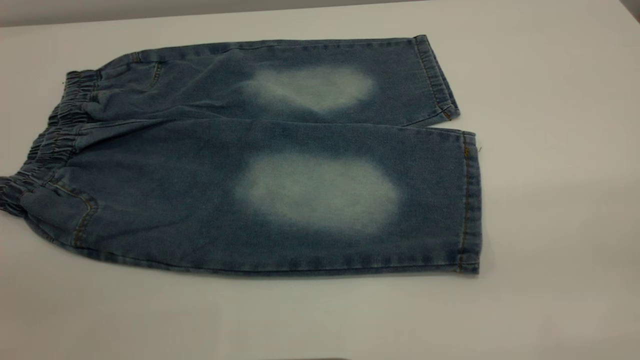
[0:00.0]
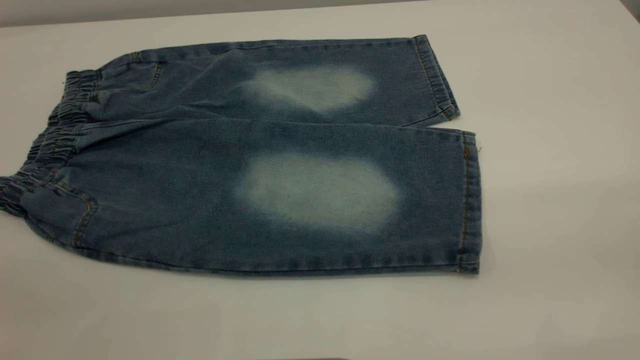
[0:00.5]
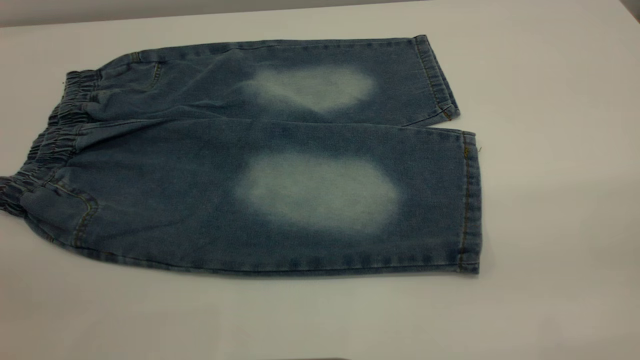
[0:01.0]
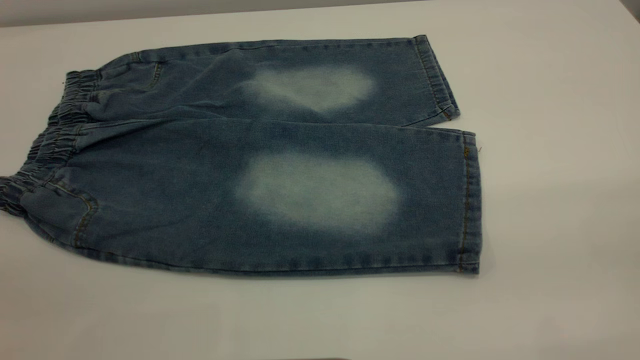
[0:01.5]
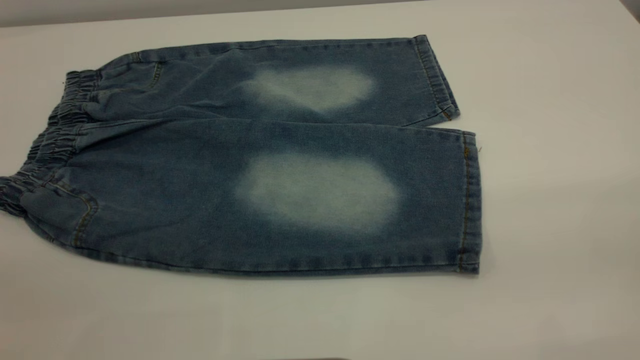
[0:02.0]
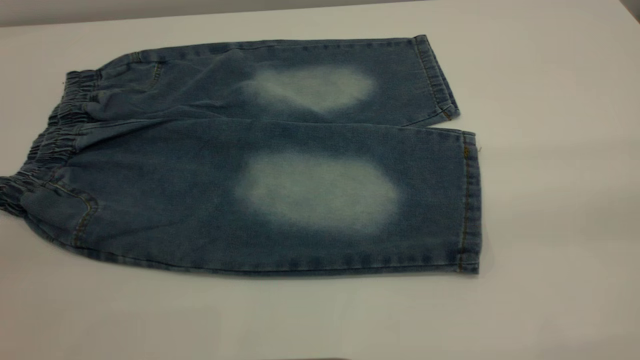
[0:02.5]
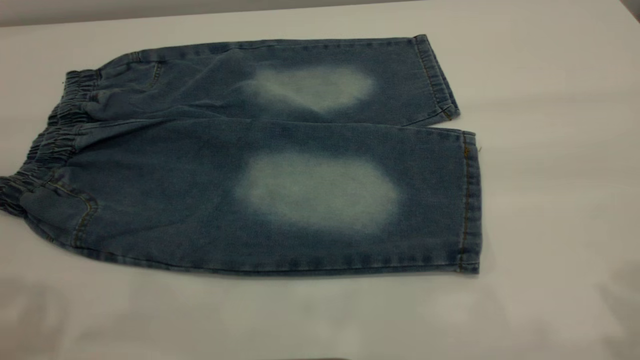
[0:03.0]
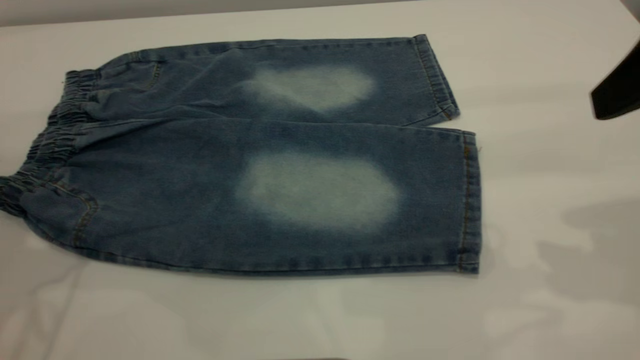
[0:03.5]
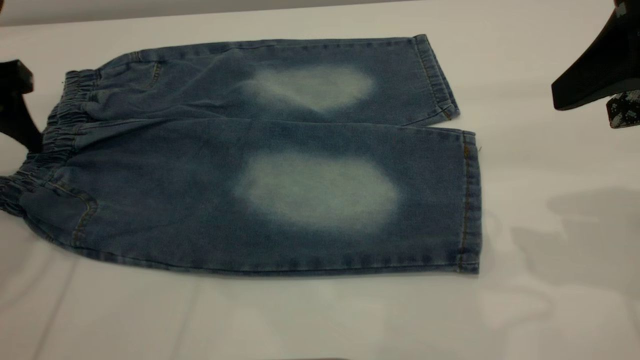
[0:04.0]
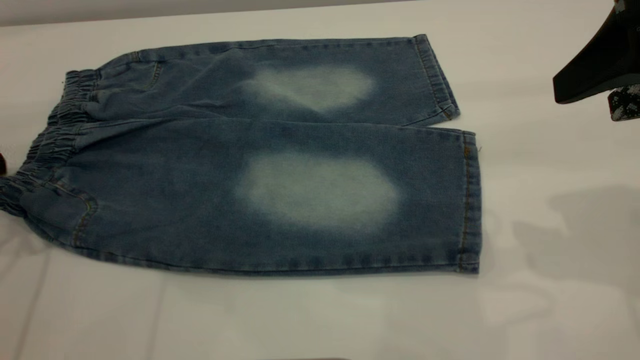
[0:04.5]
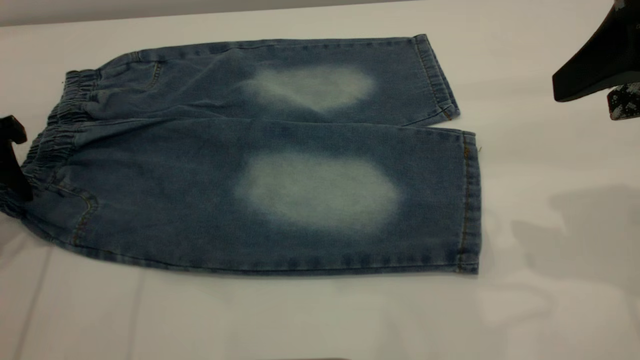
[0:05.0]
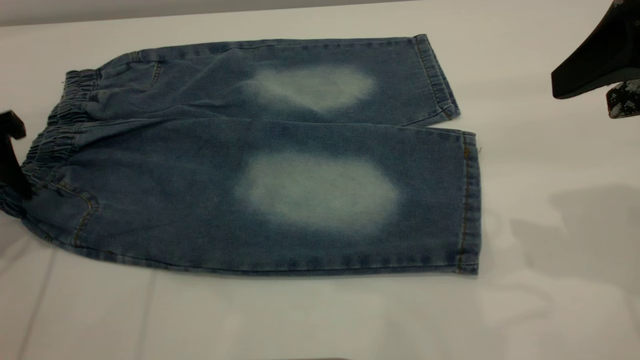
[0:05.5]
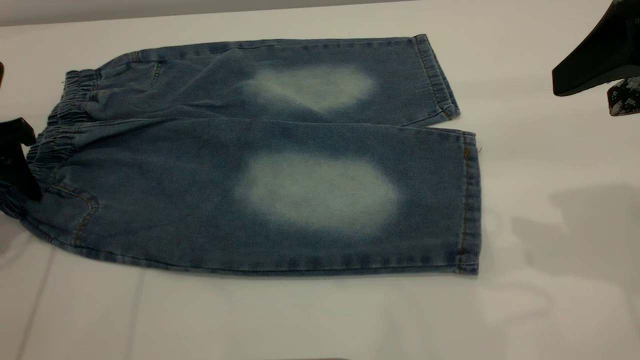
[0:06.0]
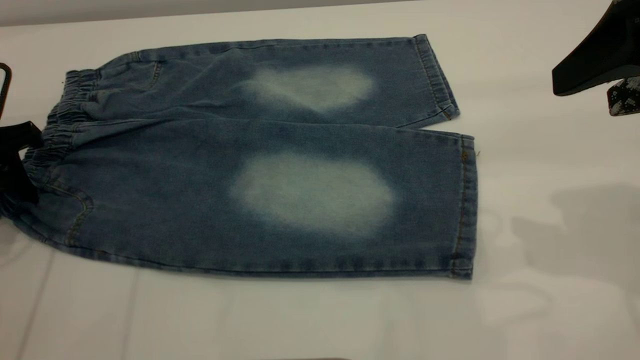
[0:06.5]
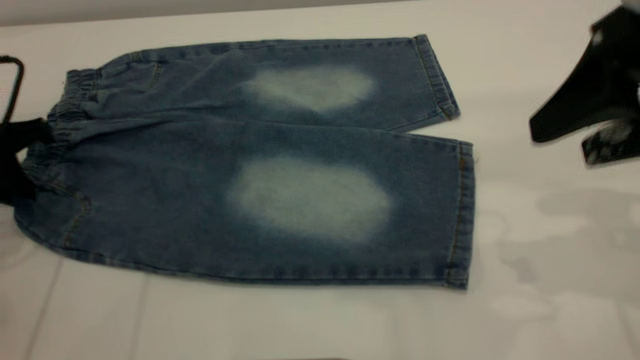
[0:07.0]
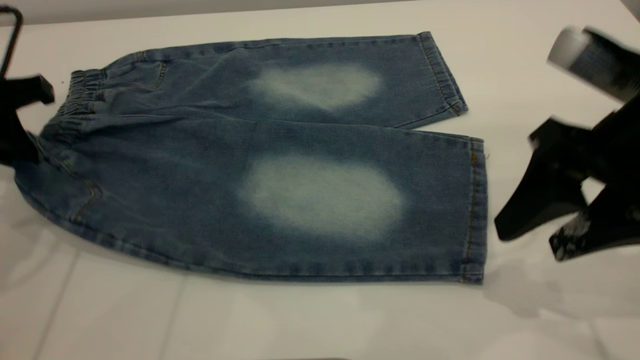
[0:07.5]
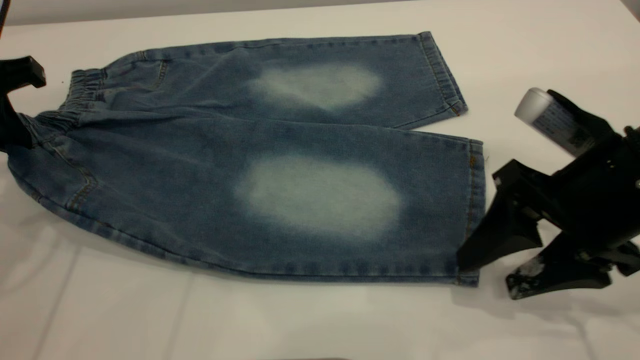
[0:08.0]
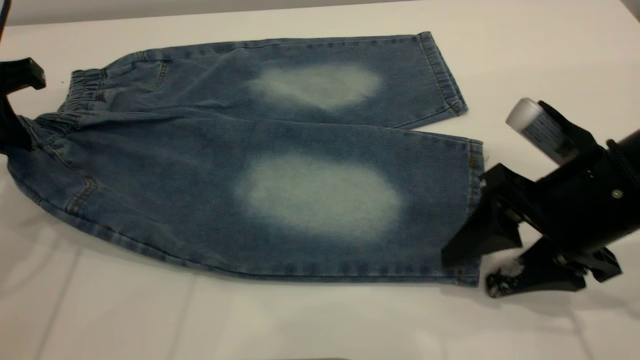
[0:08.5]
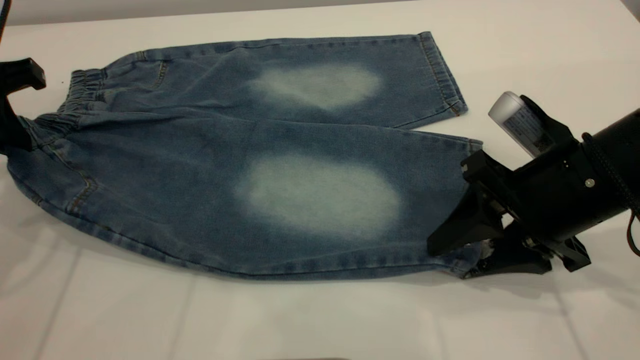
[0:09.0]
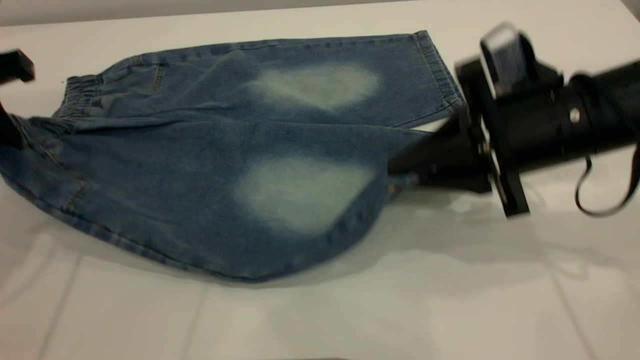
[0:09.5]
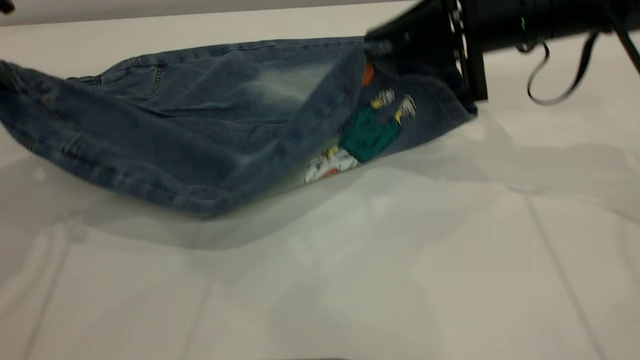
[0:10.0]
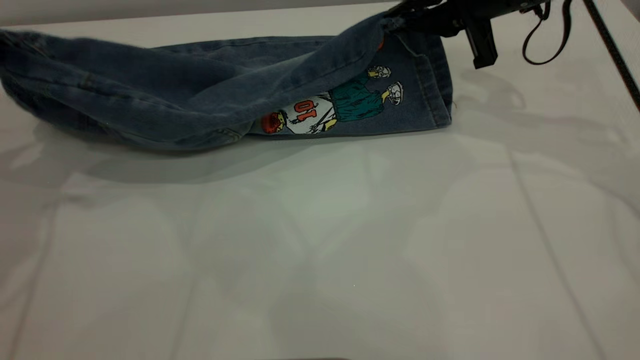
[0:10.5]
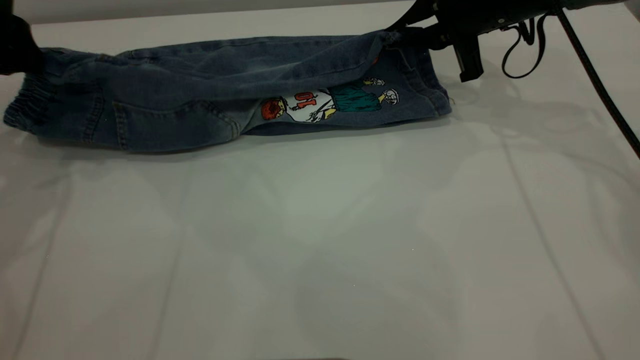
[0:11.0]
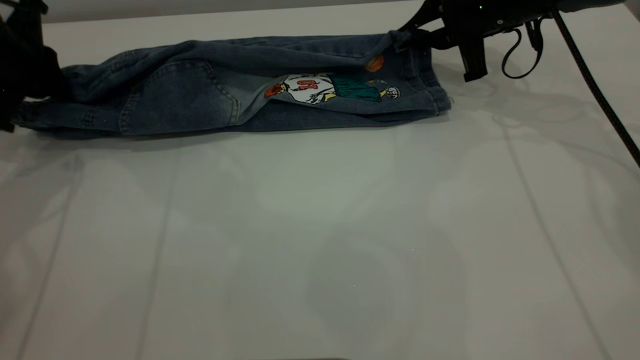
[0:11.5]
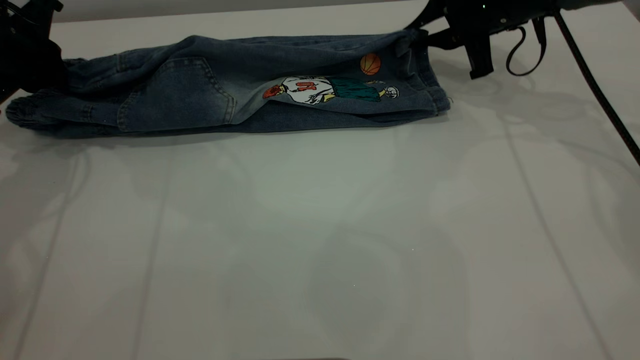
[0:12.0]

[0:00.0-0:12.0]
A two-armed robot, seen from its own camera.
0:00.0 to 0:02.0: The two grippers keep their place.
0:02.0 to 0:04.0: The right gripper shifts roughly 25 cm forward; the left gripper heads forward and downward, covering roughly 35 cm.
0:04.0 to 0:06.0: The left gripper moves downward, roughly 5 cm.
0:06.0 to 0:08.0: The left gripper goes approximately 5 cm upward, and closes its fingers; the right gripper heads downward, covering some 15 cm.
0:08.0 to 0:10.0: The right gripper is displaced forward by about 15 cm, and closes.
0:10.0 to 0:12.0: The left gripper shifts some 15 cm forward and downward. Meanwhile the right gripper shifts about 10 cm forward.

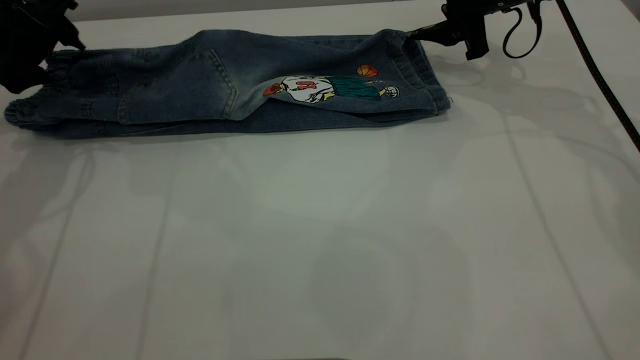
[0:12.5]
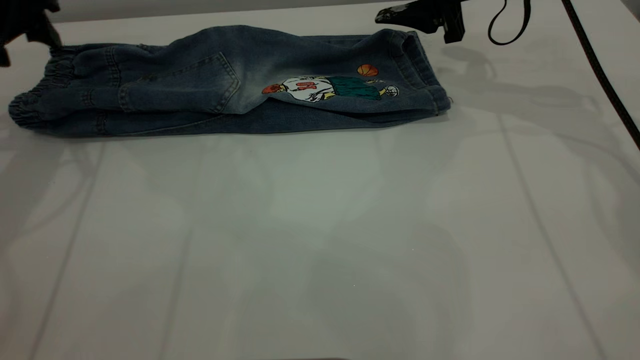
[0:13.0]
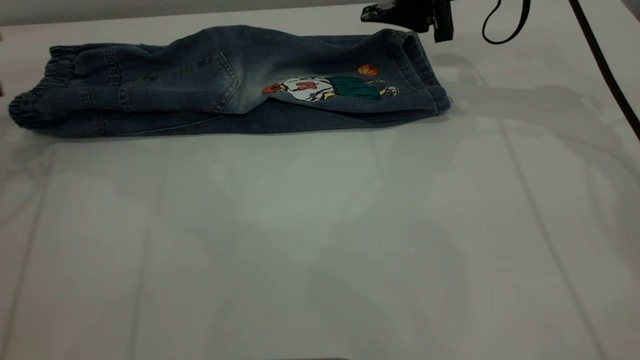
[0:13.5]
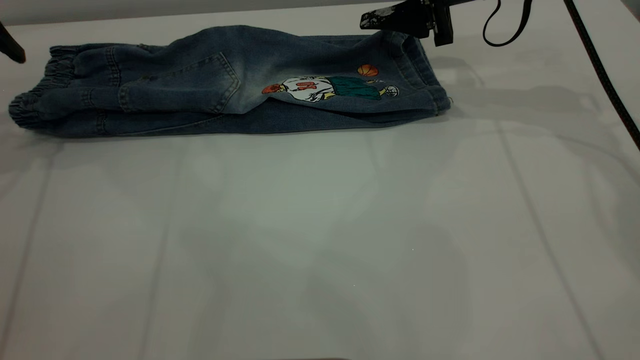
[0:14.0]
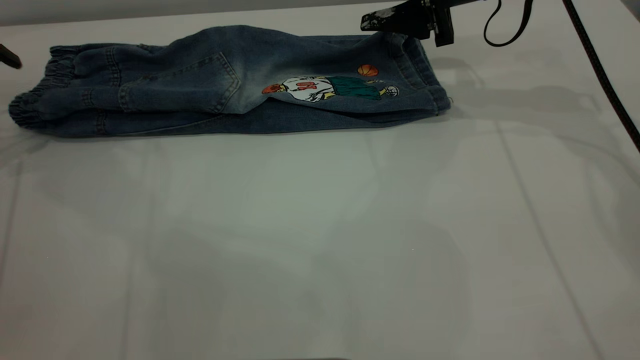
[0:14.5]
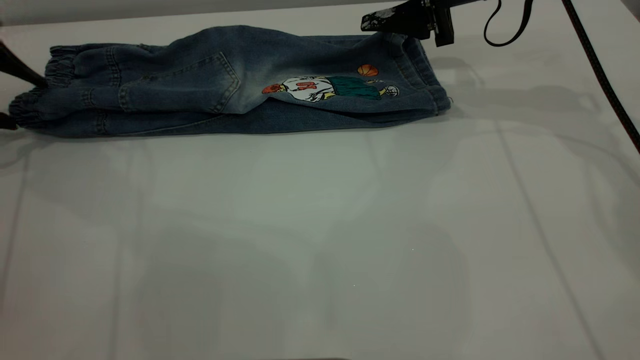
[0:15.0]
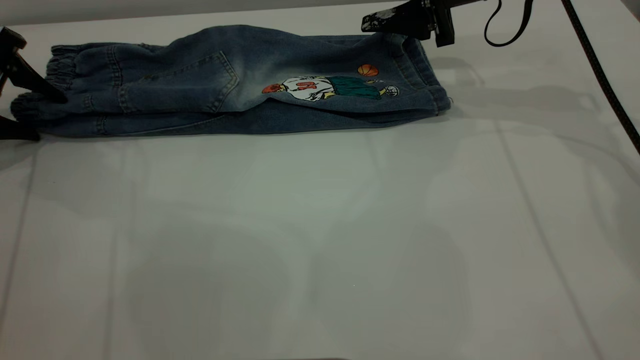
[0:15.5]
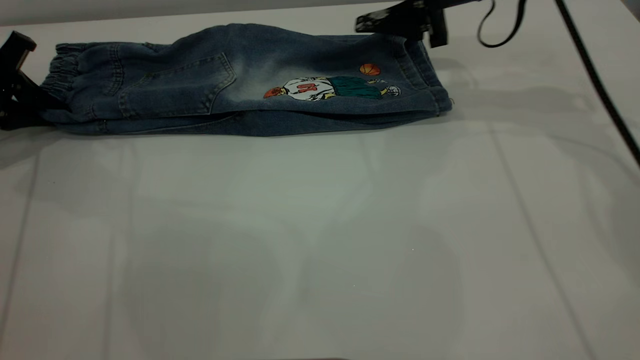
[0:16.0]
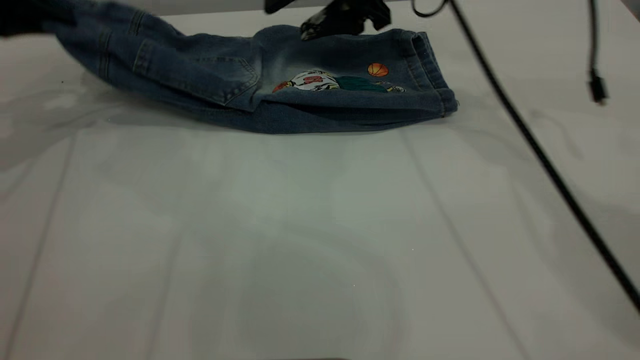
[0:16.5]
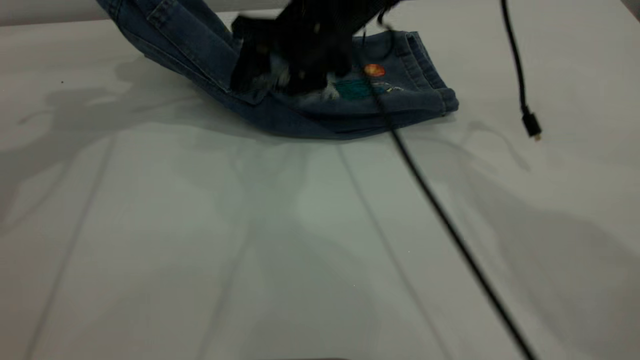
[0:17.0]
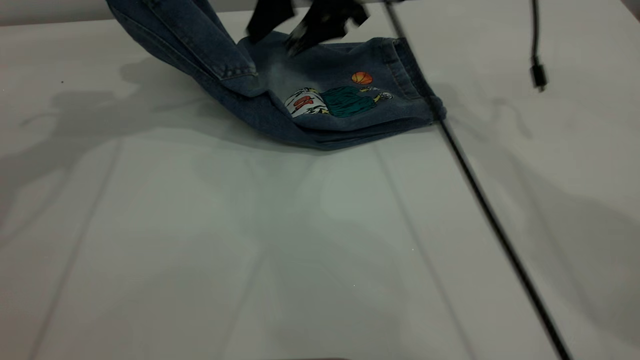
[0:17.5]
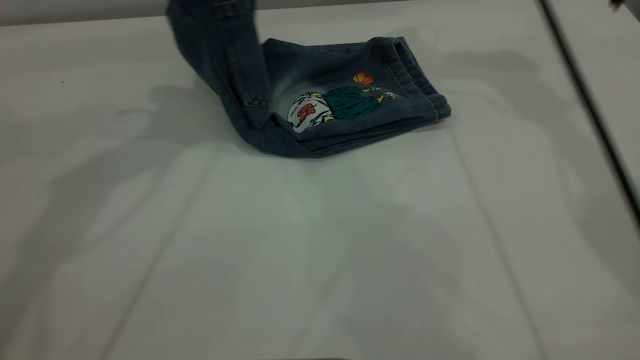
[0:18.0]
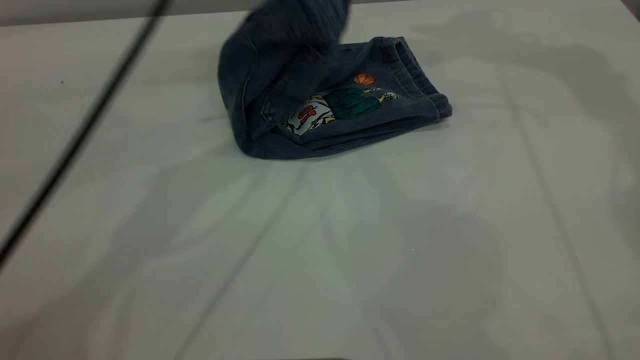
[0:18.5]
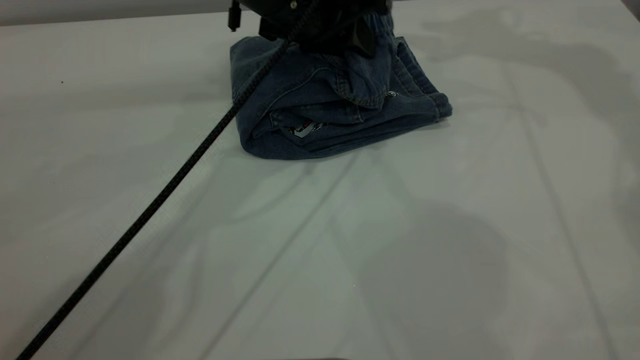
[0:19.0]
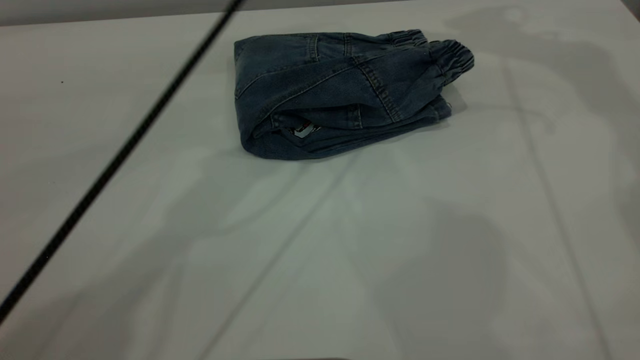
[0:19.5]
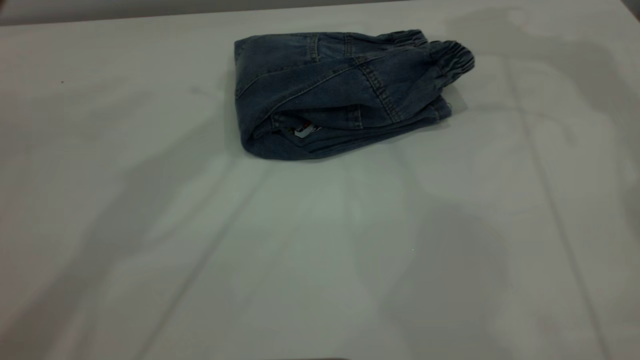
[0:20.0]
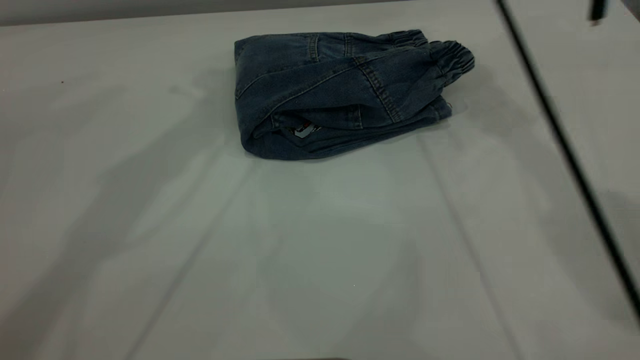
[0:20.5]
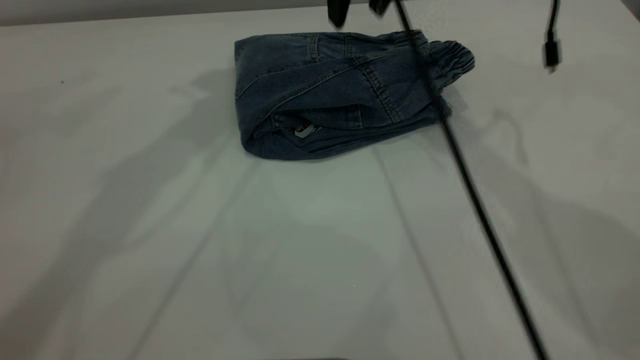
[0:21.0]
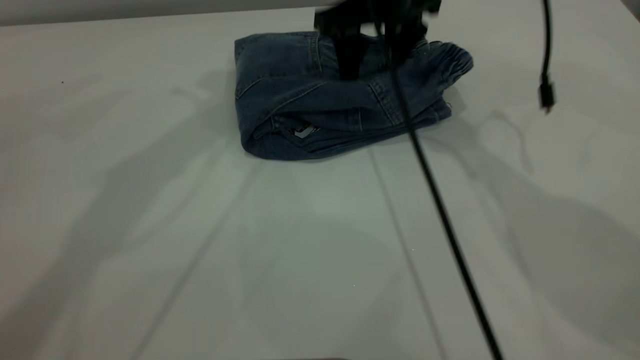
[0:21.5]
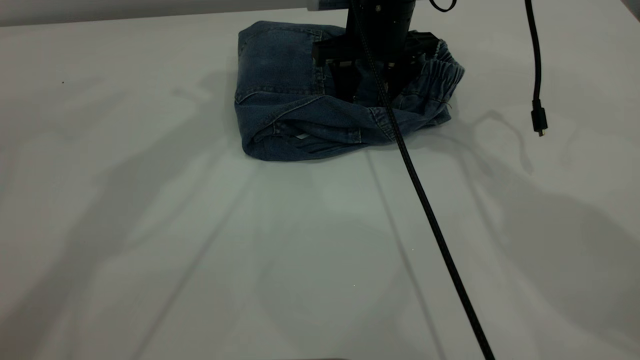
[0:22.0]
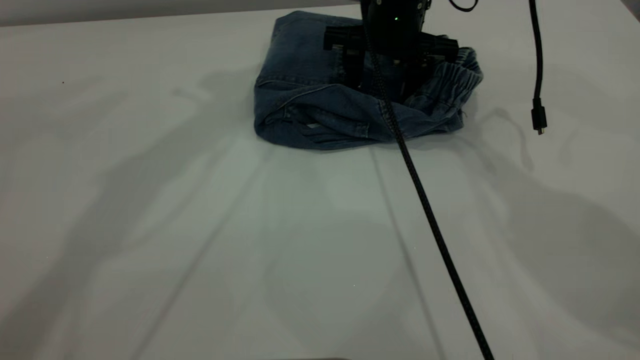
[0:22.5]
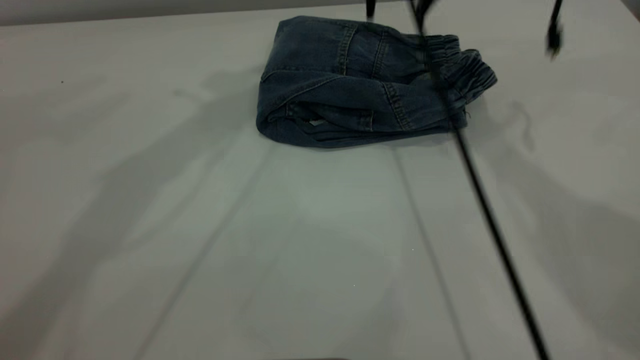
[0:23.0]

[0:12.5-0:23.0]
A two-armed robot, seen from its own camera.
Step, 0:13.5 to 0:19.5: Fold the pants from left to right.
0:12.5 to 0:14.5: The left gripper shifts some 10 cm to the left.
0:14.5 to 0:16.5: The right gripper moves to the left, some 10 cm, while the left gripper travels to the right by about 5 cm, and closes.
0:16.5 to 0:19.0: The left gripper is displaced to the right by some 30 cm, while the right gripper travels upward and to the right by some 25 cm.
0:19.0 to 0:21.0: The right gripper is displaced downward and to the left by some 25 cm. The left gripper shifts some 20 cm upward and to the left, and opens its fingers.
0:21.0 to 0:23.0: The right gripper goes downward and returns, about 10 cm each way.
